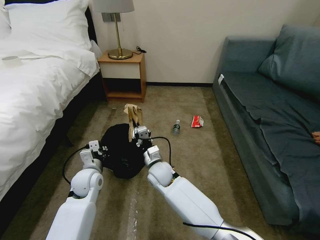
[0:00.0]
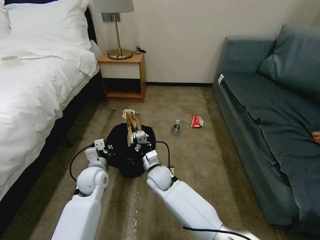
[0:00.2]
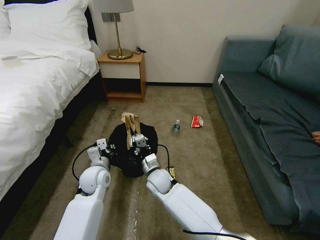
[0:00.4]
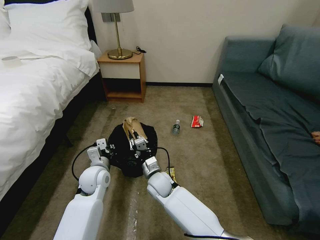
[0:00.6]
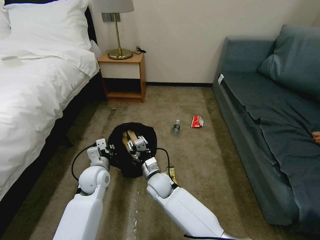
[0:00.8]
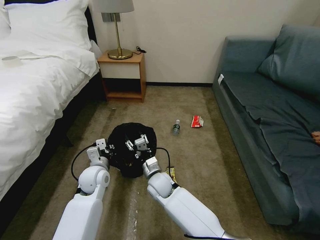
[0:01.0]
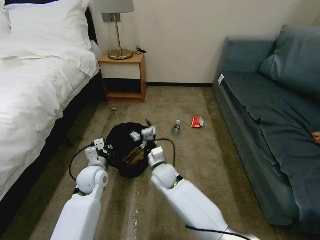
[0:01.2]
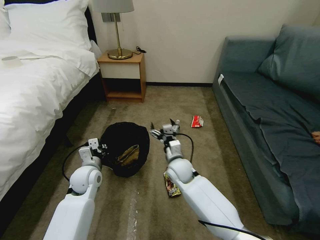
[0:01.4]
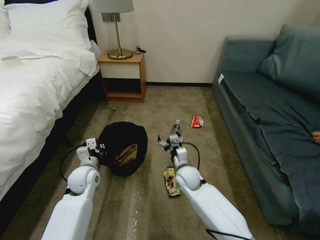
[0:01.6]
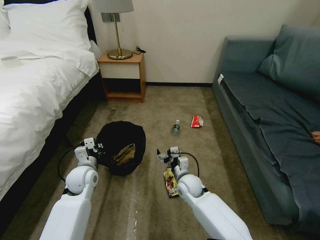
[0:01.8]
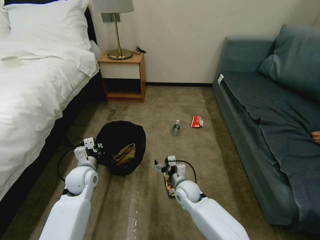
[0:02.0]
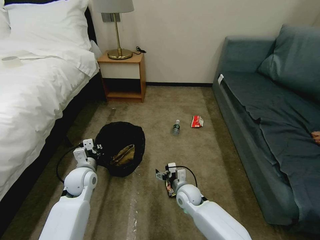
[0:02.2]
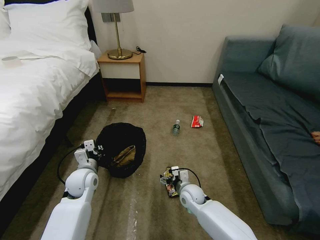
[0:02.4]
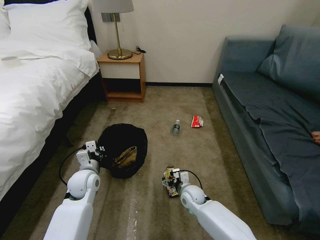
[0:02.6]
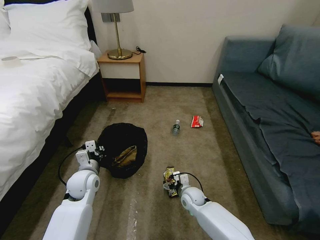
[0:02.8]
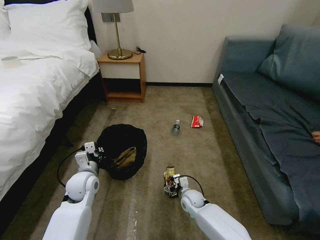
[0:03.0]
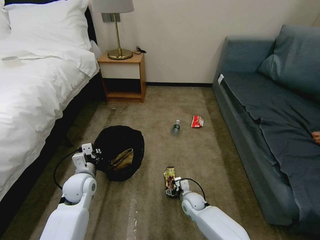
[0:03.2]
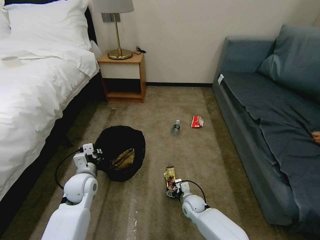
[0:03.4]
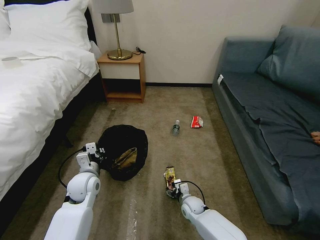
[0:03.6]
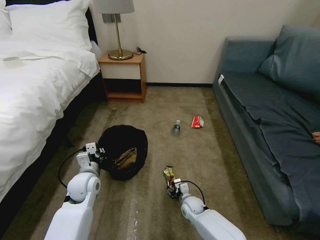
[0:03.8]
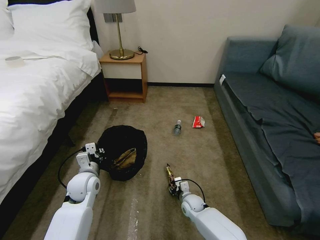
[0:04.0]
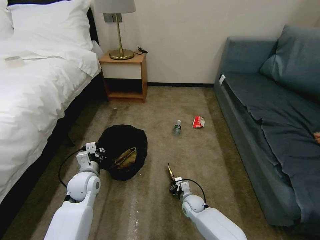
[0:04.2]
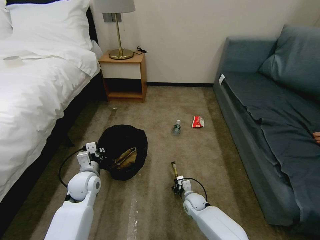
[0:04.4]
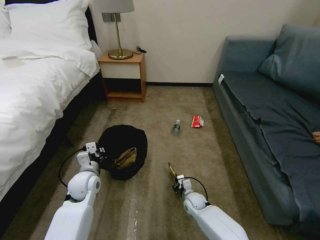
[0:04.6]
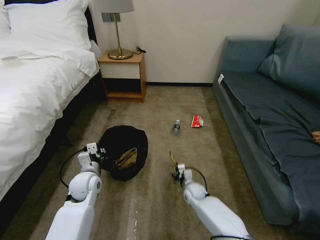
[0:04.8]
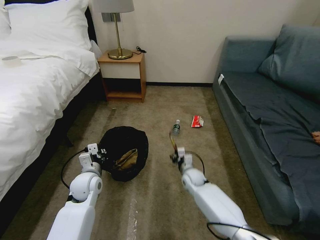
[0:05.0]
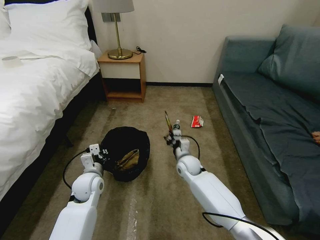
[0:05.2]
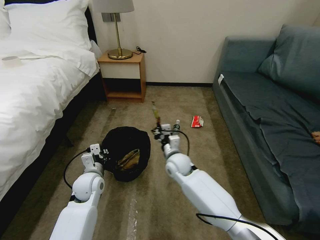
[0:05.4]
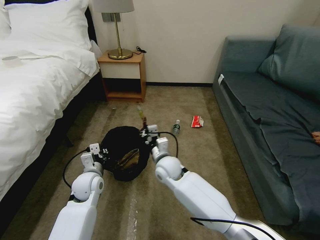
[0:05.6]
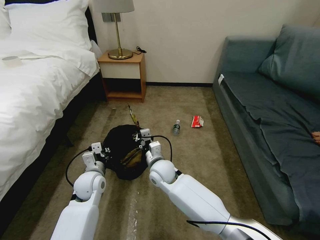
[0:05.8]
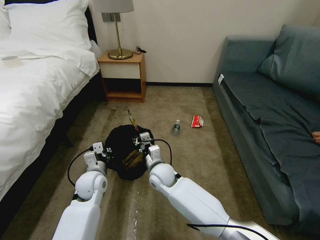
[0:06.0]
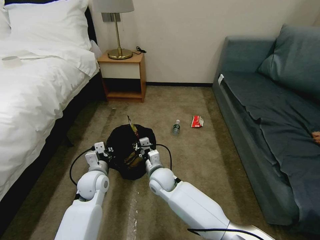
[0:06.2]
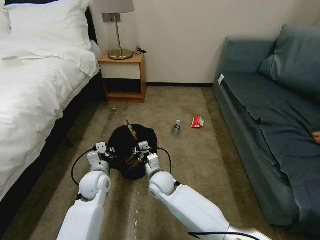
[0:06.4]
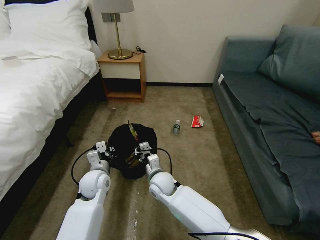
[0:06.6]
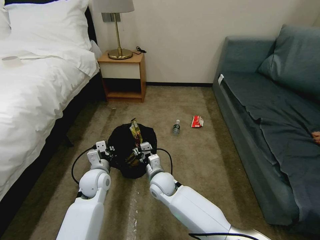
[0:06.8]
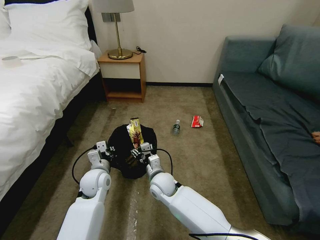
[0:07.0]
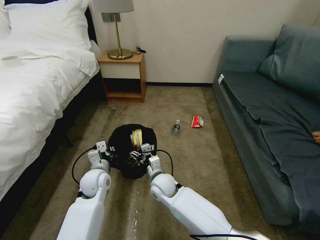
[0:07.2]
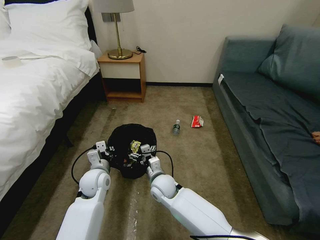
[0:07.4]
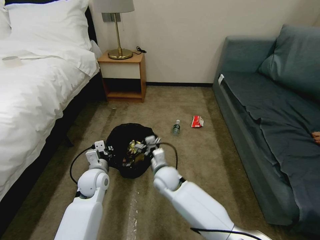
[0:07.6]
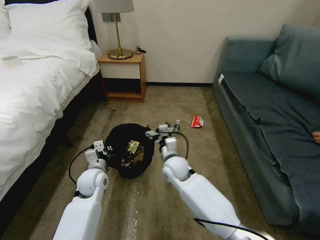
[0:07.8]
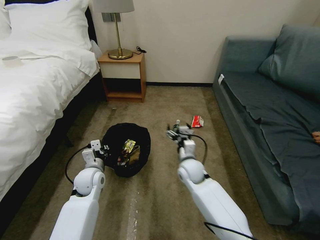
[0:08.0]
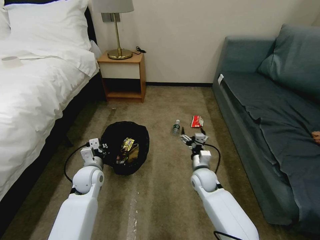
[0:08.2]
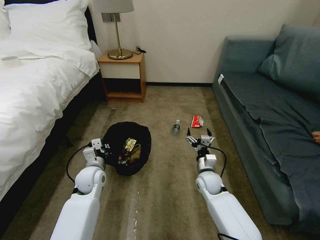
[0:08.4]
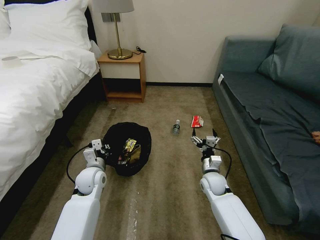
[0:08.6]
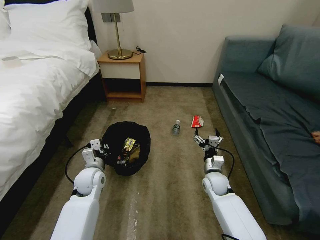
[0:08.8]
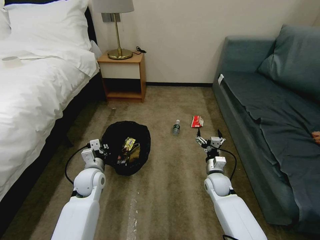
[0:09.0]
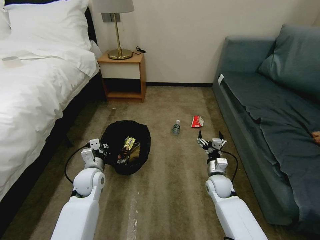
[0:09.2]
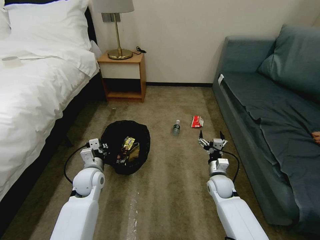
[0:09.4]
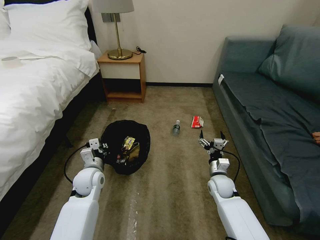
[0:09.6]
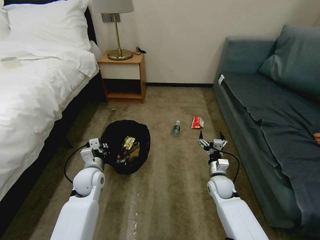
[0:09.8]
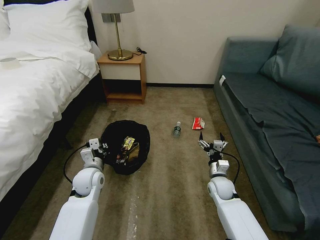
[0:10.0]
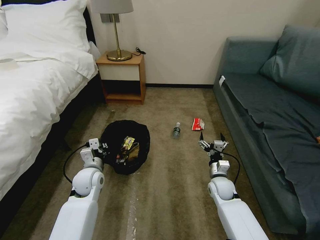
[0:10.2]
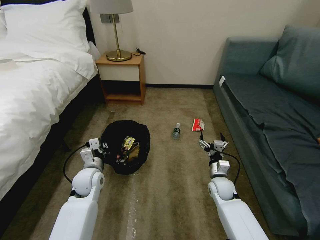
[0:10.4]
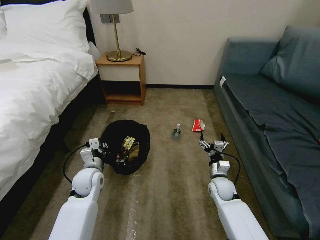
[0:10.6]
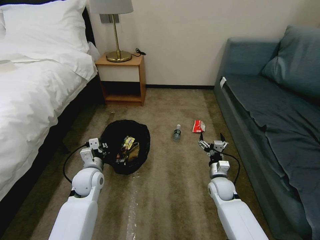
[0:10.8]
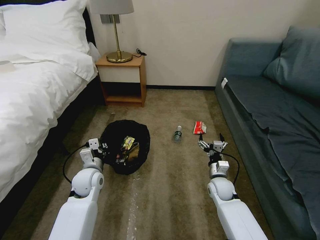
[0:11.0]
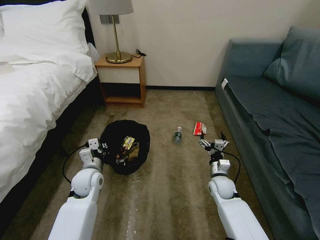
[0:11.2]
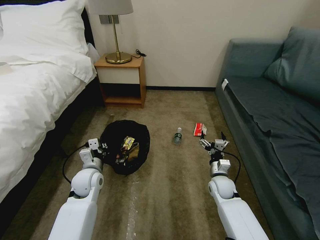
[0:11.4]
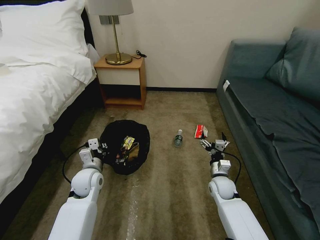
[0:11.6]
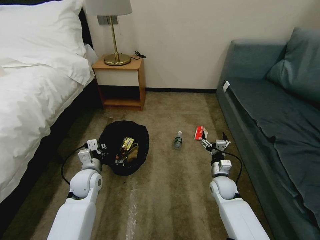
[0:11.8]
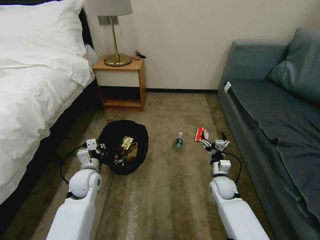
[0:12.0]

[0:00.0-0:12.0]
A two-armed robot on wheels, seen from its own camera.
Task of the whole recording: Pick up the trash bin, then pick up the garbage on the floor and place it into the trash bin.
0:00.0 to 0:01.6: The right gripper shifts roughly 10 cm to the right, and opens its fingers.
0:01.6 to 0:03.0: The right gripper shifts some 15 cm downward.
0:03.0 to 0:04.4: The right gripper closes.
0:04.4 to 0:06.0: The right gripper travels upward and to the left by roughly 25 cm.
0:06.0 to 0:07.6: The right gripper opens.
0:07.6 to 0:09.0: The right gripper heads to the right, covering roughly 20 cm.
0:09.0 to 0:10.4: The grippers move only a little.
0:10.4 to 0:12.0: Both grippers stay about where they are.

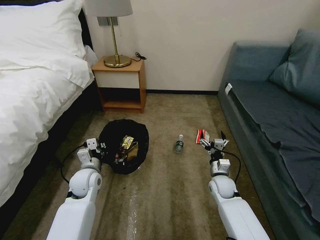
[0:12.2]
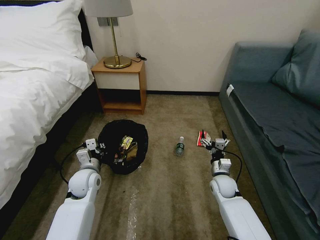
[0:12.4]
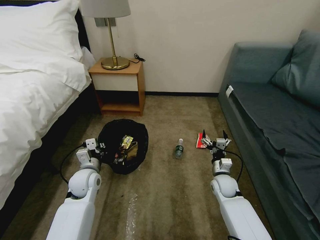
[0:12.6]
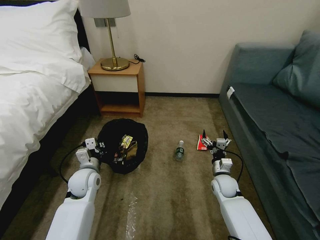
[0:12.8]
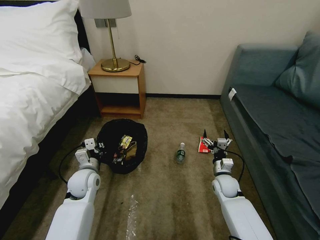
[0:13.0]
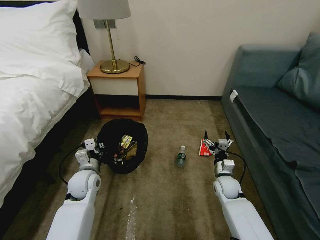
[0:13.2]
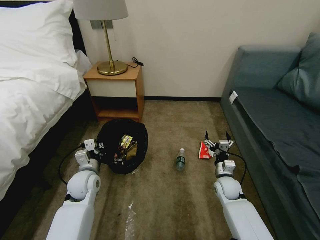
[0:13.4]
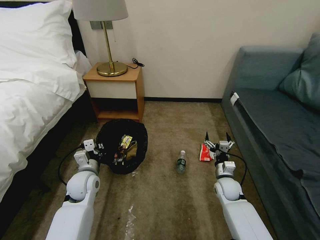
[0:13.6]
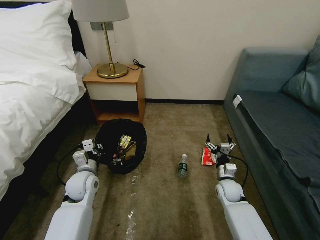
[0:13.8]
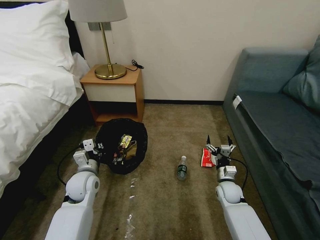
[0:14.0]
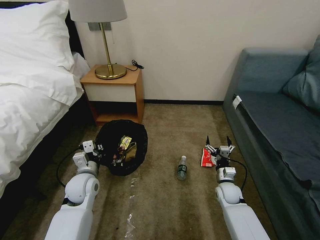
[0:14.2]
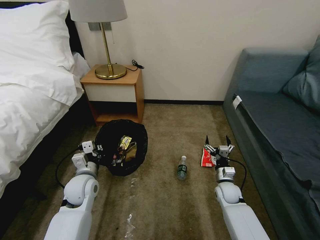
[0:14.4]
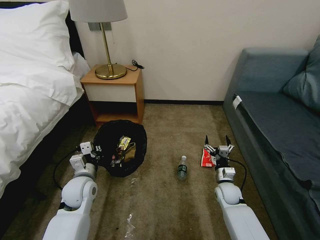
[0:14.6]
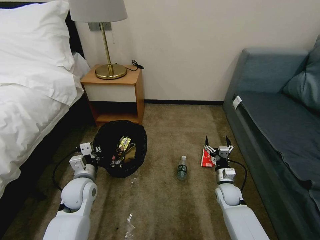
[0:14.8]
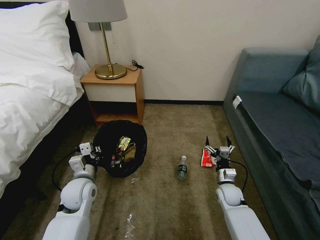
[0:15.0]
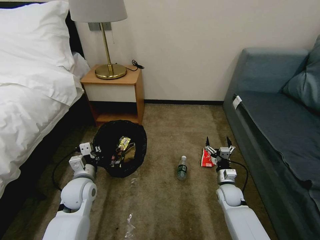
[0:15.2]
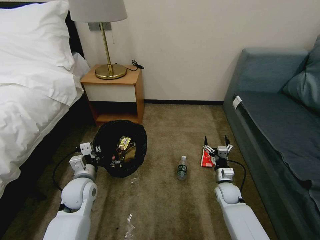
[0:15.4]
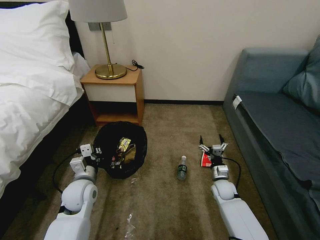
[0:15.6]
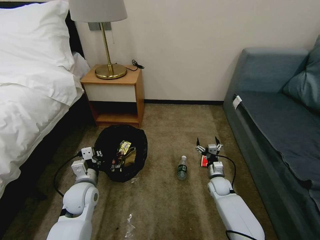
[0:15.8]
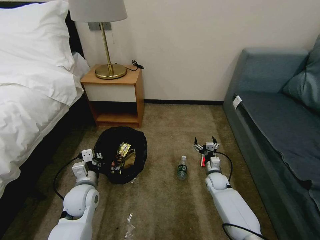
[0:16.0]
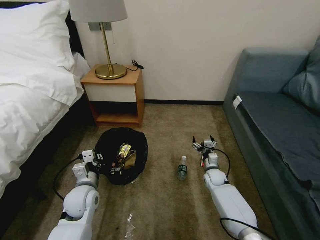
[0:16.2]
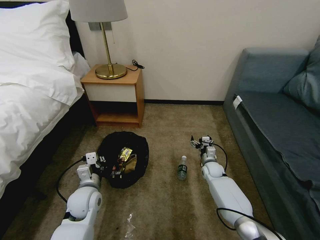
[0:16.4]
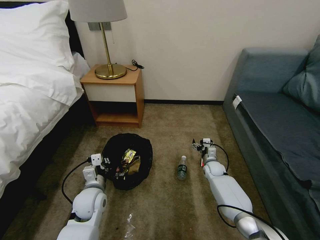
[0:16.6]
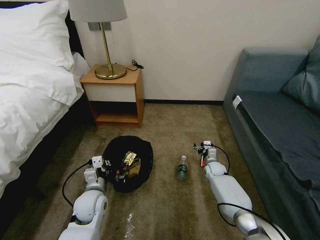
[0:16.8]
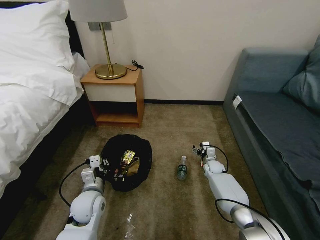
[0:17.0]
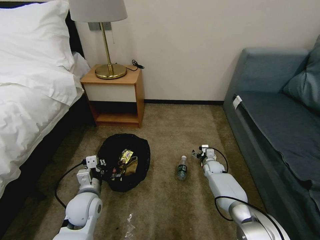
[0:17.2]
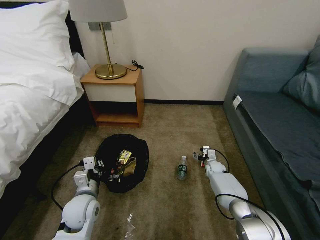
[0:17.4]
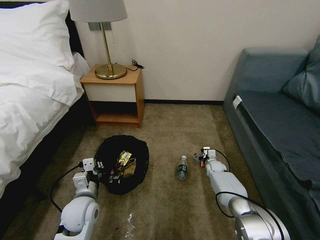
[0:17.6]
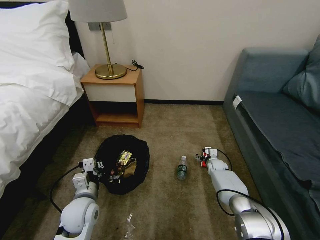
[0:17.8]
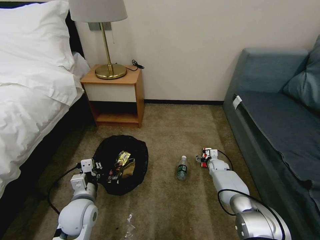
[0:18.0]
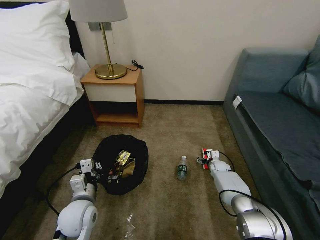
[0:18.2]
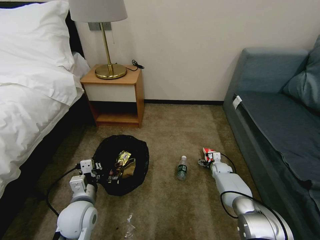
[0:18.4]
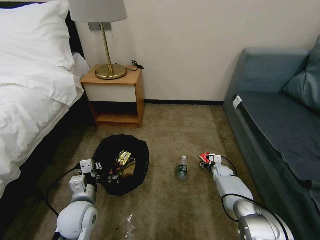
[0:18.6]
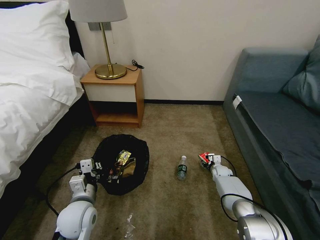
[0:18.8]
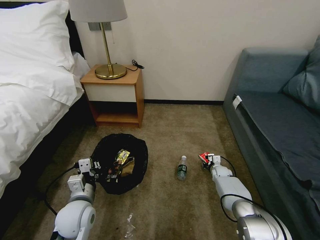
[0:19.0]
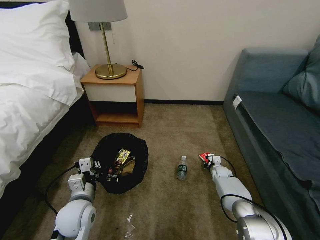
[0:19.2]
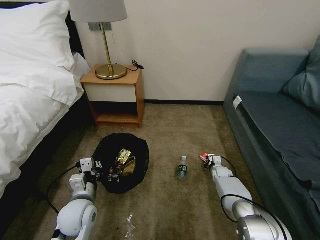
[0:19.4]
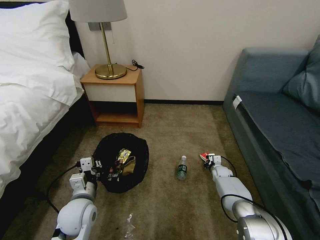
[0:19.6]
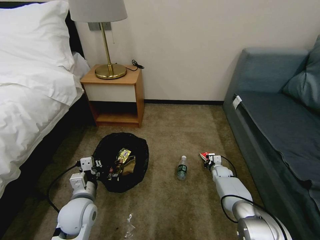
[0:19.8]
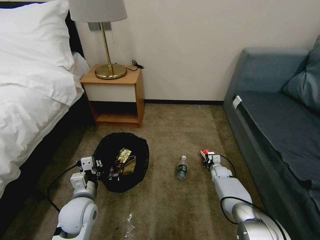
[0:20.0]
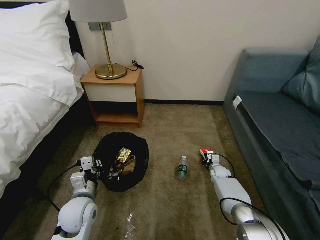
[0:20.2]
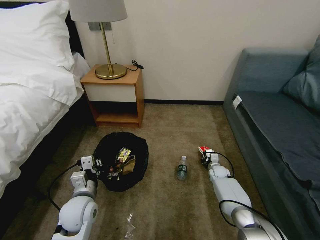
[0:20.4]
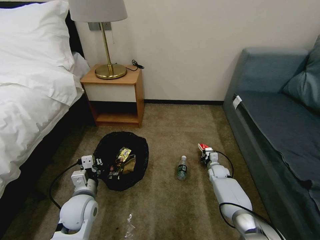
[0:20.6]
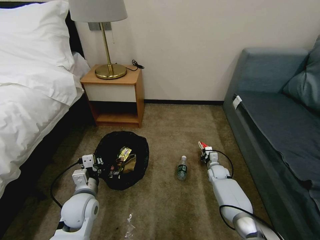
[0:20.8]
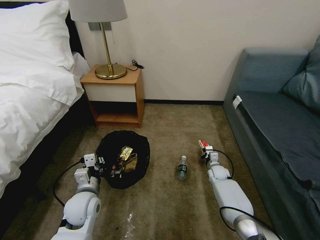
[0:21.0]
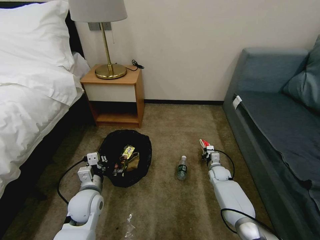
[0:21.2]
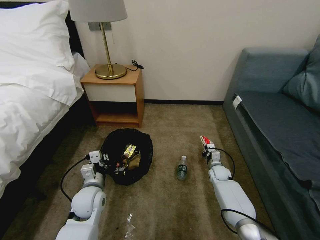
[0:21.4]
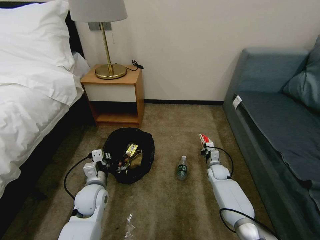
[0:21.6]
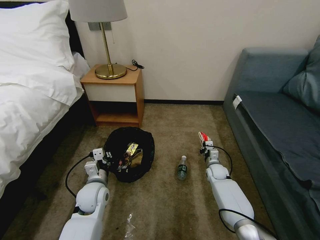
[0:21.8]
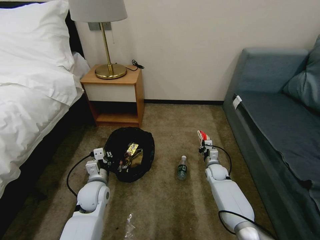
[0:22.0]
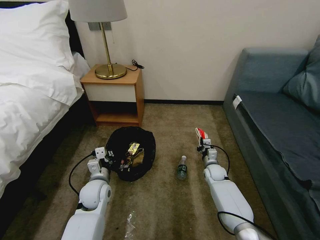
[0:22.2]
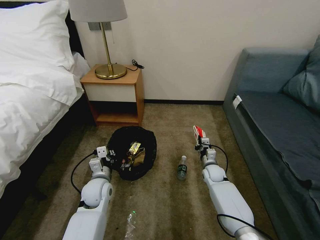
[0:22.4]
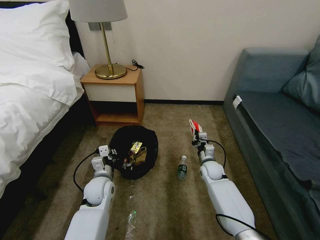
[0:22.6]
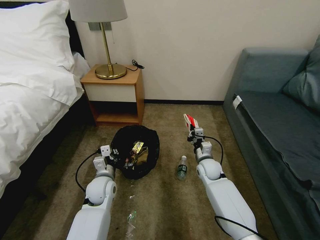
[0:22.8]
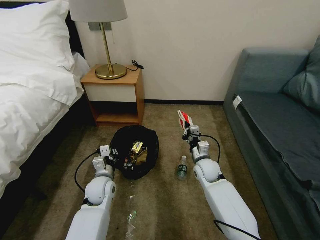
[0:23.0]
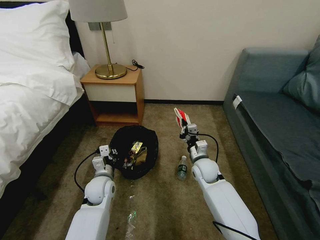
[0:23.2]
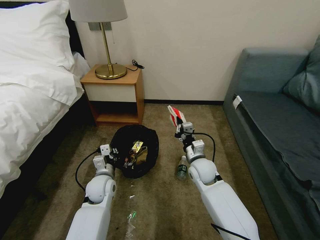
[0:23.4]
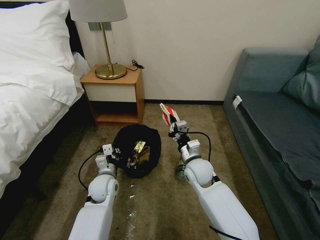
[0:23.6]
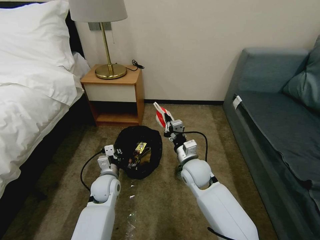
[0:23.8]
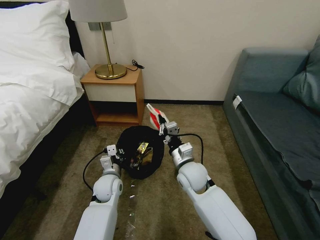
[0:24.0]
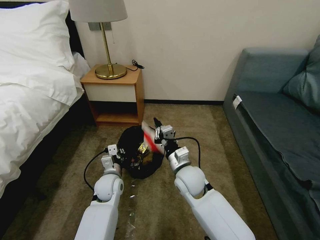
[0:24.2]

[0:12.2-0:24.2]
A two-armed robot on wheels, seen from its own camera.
Task of the whole recording: Pick up the trash bin, then pick up the garbage on the floor and place it into the trash bin.
0:13.8 to 0:15.2: The grippers make only small movements.
0:15.2 to 0:16.6: The right gripper travels forward by roughly 15 cm. Meanwhile the left gripper ends up roughly 5 cm from where it was.
0:16.6 to 0:18.2: The right gripper shifts by some 5 cm. The left gripper heads backward, covering about 5 cm.
0:18.2 to 0:19.8: The right gripper closes.
0:19.8 to 0:21.2: The right gripper moves approximately 5 cm.
0:21.2 to 0:22.6: The right gripper shifts some 10 cm upward and to the left; the left gripper moves forward, approximately 5 cm.
0:22.6 to 0:24.2: The right gripper is displaced to the left, upward and backward by about 20 cm.
